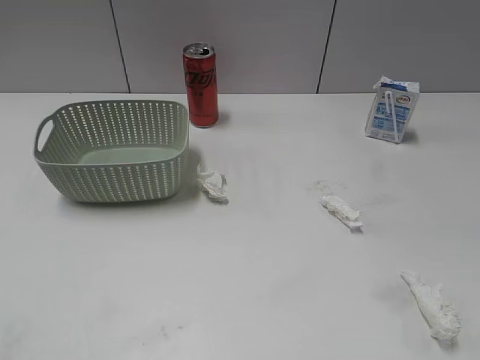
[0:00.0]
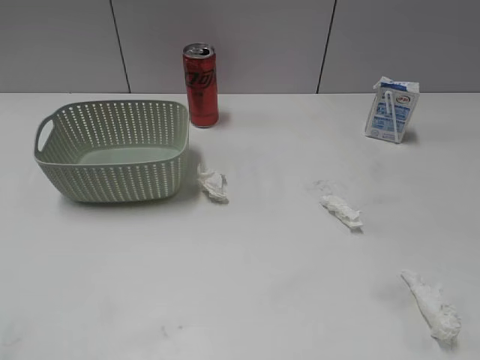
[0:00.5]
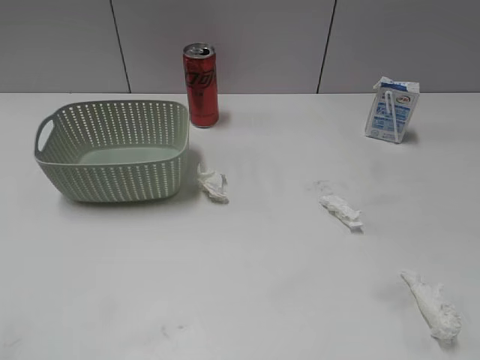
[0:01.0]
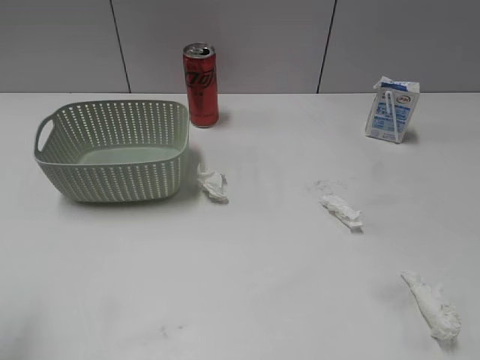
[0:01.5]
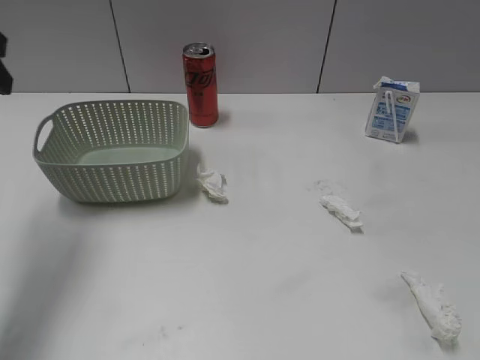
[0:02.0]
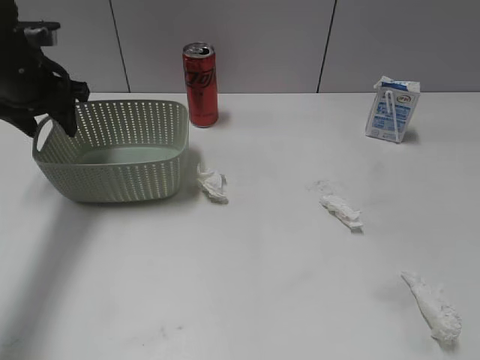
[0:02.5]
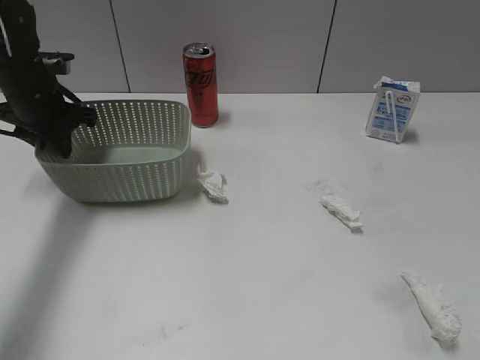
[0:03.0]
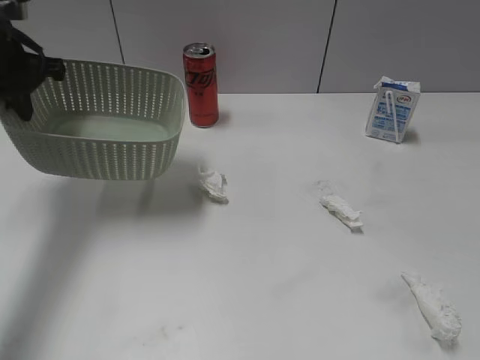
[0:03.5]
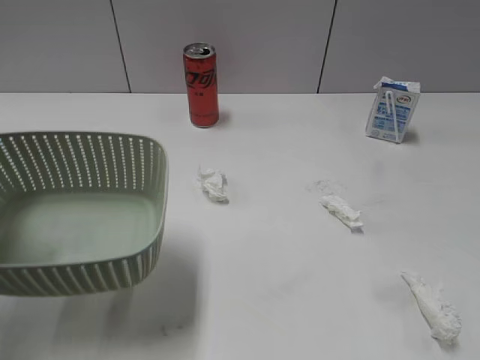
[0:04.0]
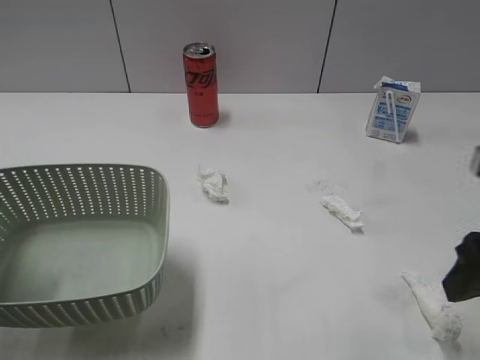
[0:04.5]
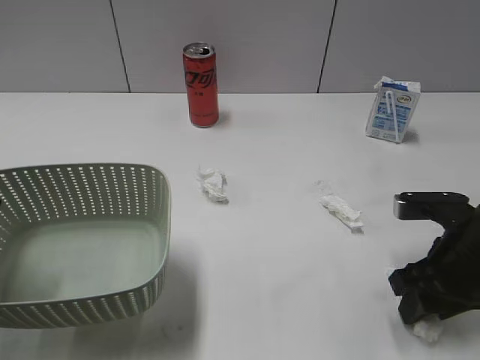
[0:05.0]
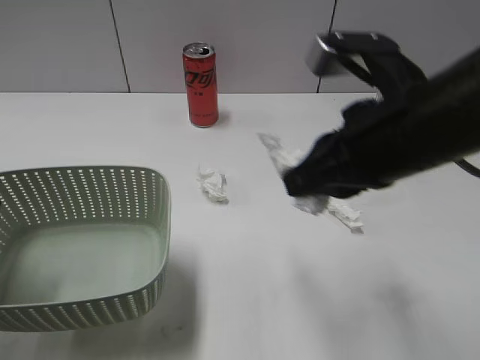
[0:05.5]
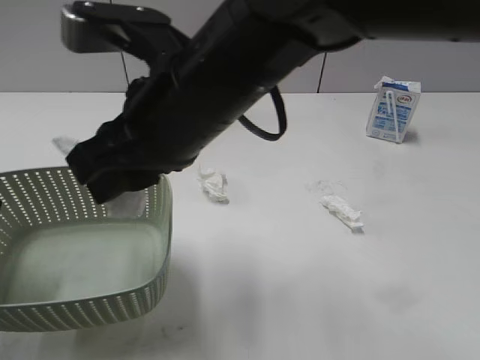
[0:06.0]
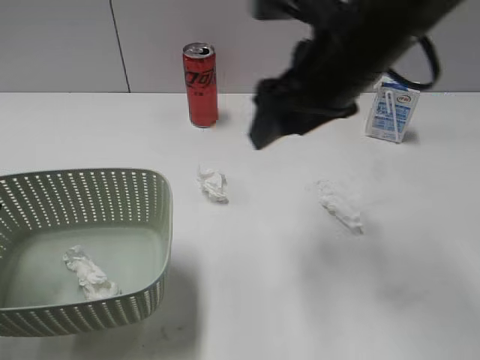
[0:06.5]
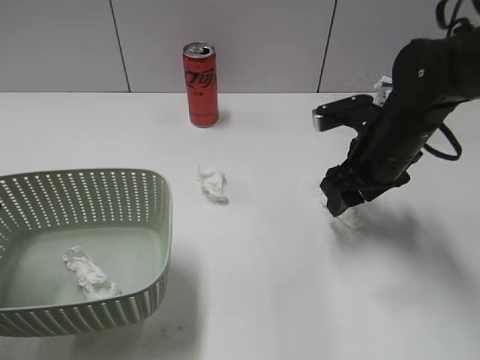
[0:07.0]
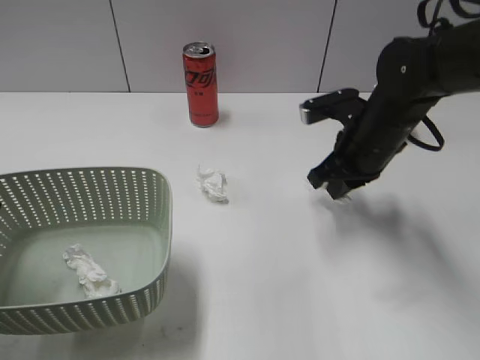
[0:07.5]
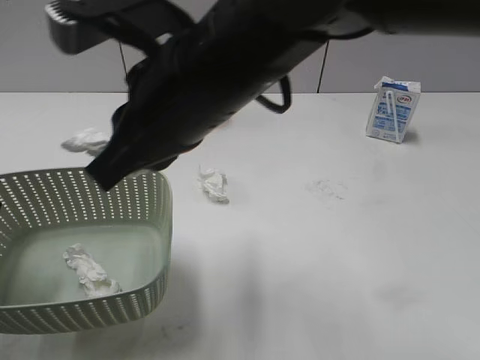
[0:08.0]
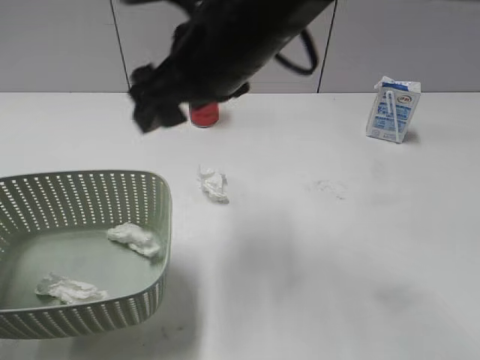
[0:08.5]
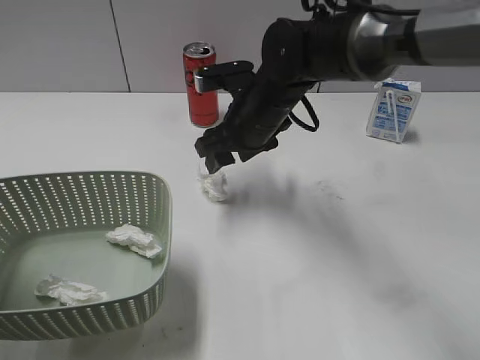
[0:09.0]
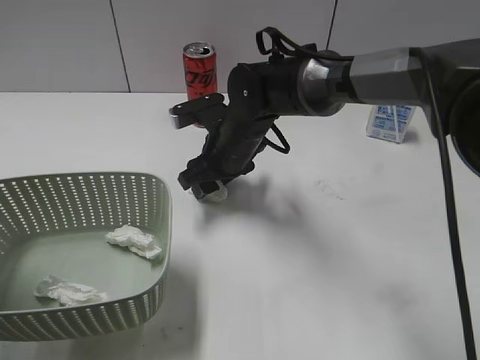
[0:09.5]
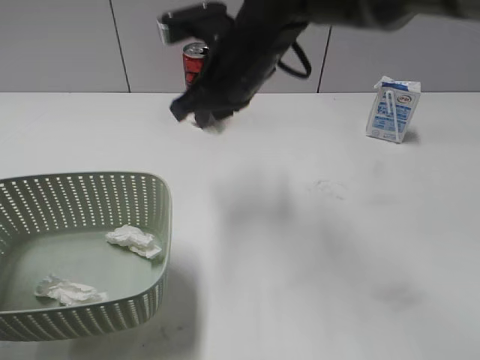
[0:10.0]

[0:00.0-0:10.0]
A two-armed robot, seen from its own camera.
Step, 0:02.0 to 0:03.0: Grasp the basket with left gripper.
Step, 0:04.0 to 0:05.0: Grasp the waste paper with right gripper.
Step, 0:05.5 to 0:06.0: Place the waste paper in the basket with right gripper.
Step, 0:06.5 to 0:07.5: Grasp the waste paper with right gripper.
Step, 0:08.5 to 0:09.5: Grasp the waste paper with right gripper.
0:02.0 to 0:04.0: The left gripper goes some 10 cm backward and downward, and closes, while the right gripper shifts about 5 cm forward.
0:04.0 to 0:06.0: The right gripper shifts some 35 cm to the left and forward, and closes.
0:06.0 to 0:08.0: The right gripper goes to the right and returns, roughly 20 cm each way, and closes up.
0:08.0 to 0:10.0: The right gripper heads forward, covering roughly 10 cm, goes downward and returns, roughly 15 cm each way, and opens, then closes once more.

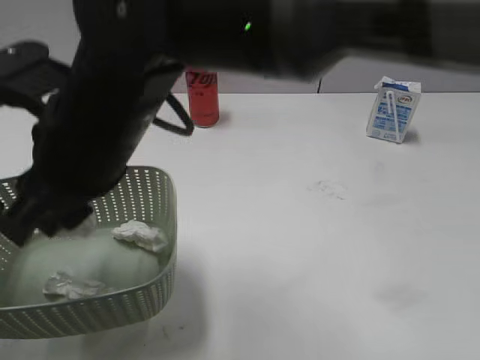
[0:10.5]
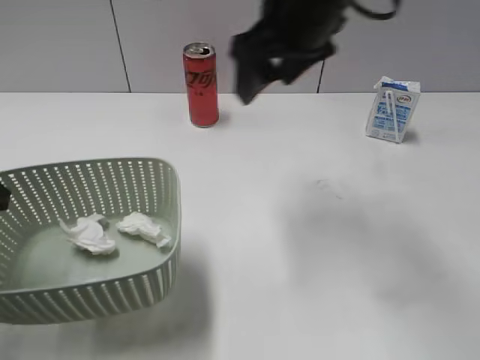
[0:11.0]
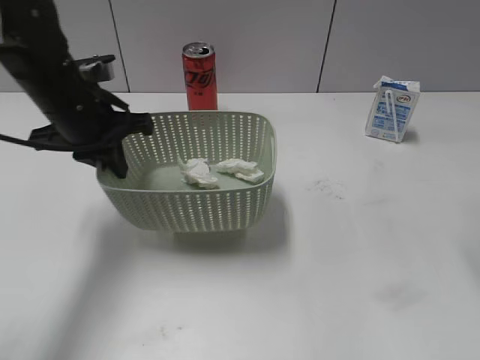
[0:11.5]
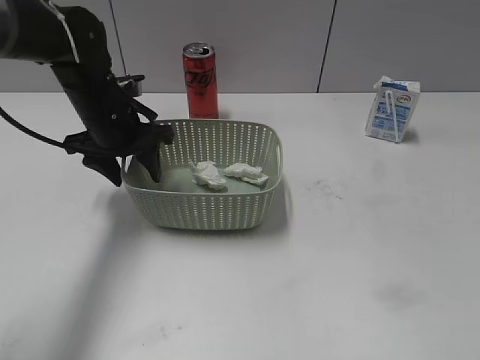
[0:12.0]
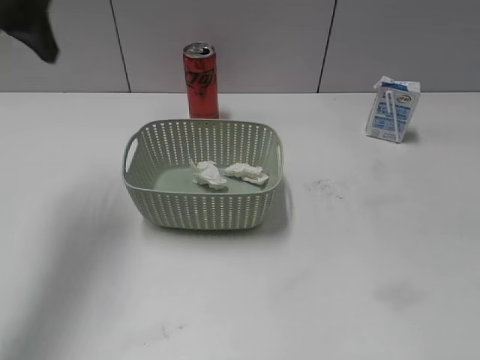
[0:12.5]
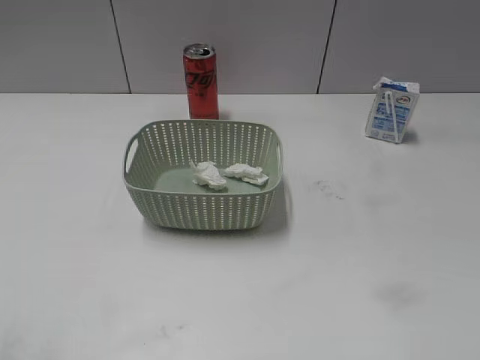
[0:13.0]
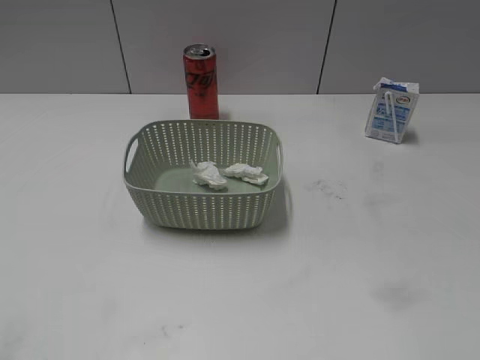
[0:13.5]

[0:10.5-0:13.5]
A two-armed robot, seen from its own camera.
Step, 0:11.0 to 0:12.0: Place the basket on the table with left gripper.
0:10.5 to 0:12.0: The left gripper moves forward and to the right, some 25 cm, and opens its fingers. Meanwhile the right gripper is displaced to the right by approximately 40 cm.
0:12.0 to 0:13.5: The left gripper shifts roughly 40 cm backward and to the left; the right gripper is displaced backward by approximately 5 cm.

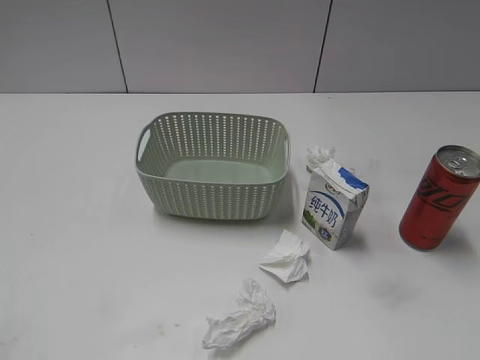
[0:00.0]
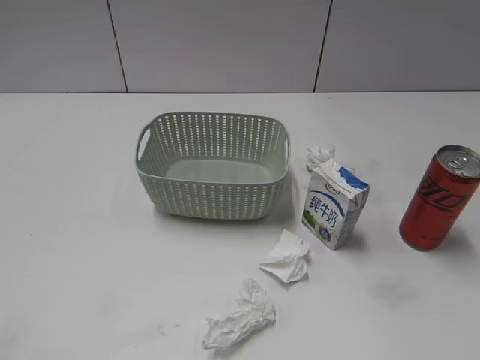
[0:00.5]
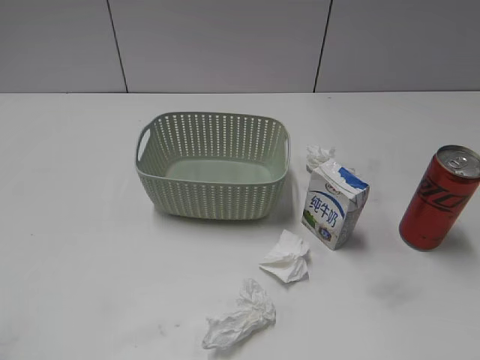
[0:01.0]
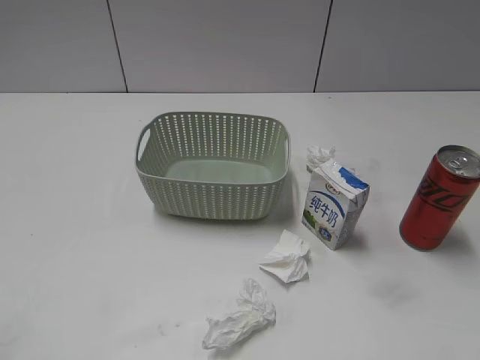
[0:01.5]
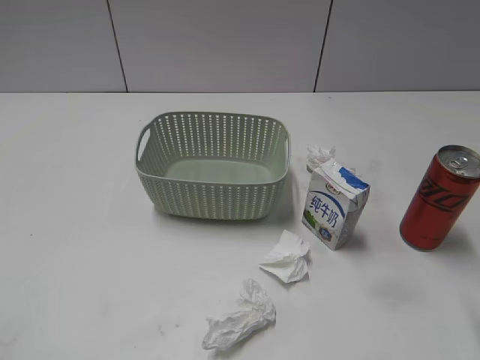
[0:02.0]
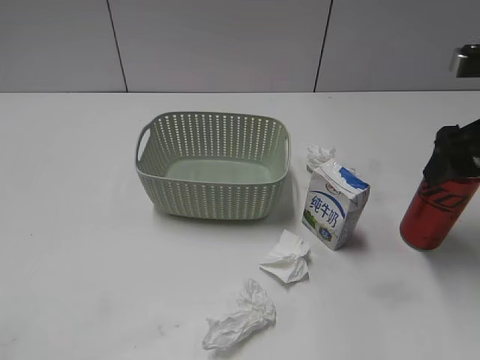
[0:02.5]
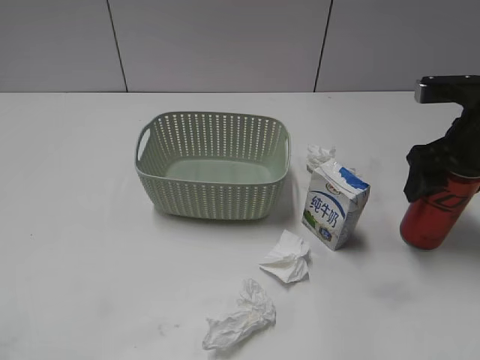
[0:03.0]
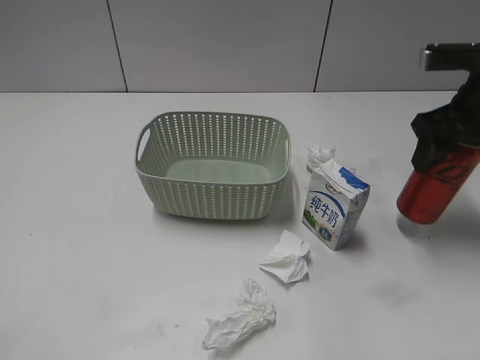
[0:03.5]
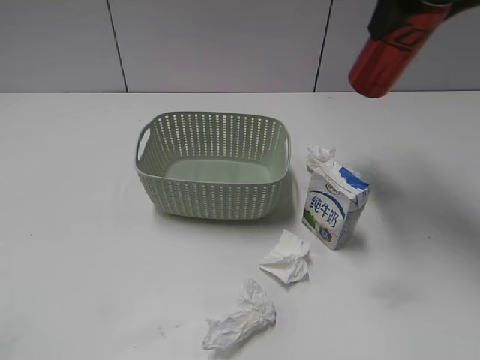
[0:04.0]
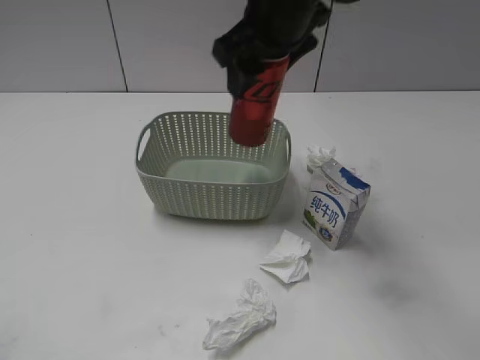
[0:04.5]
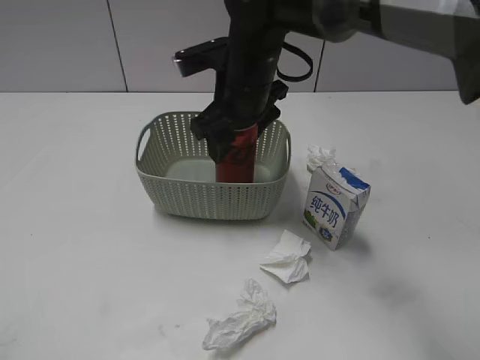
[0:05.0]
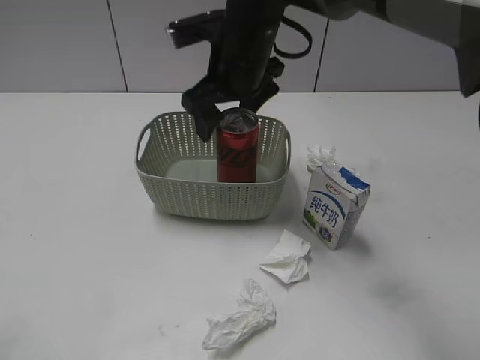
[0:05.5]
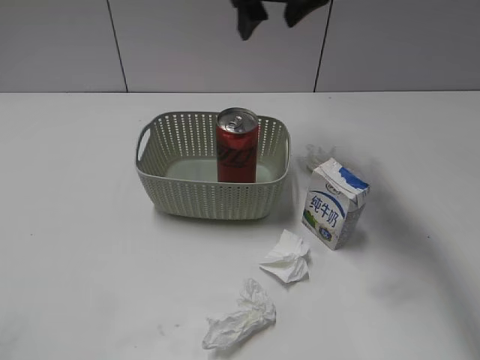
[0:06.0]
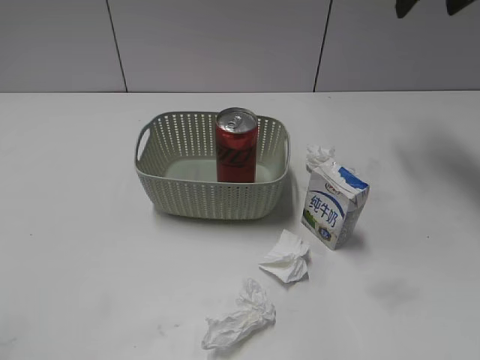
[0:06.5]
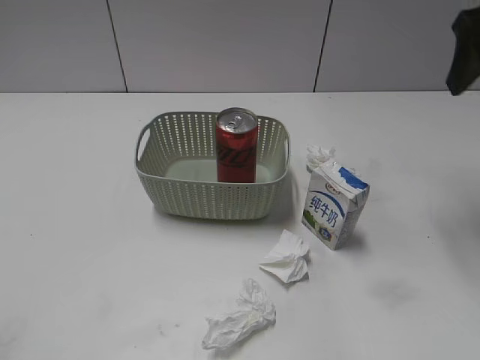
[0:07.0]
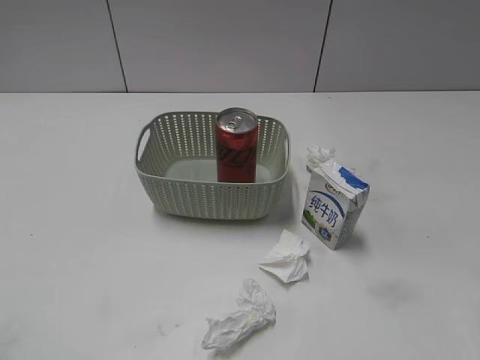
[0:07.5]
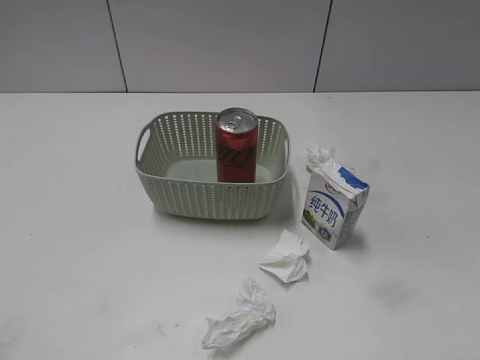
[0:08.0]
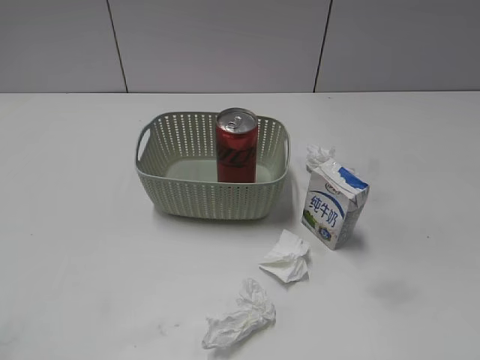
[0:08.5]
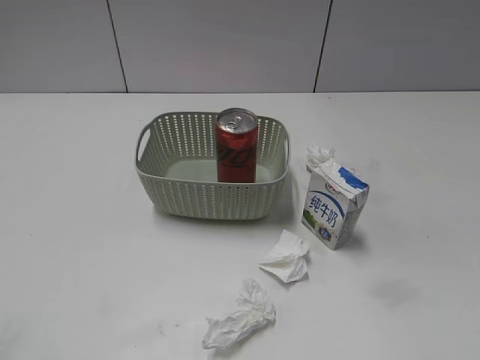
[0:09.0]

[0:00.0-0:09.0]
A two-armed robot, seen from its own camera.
Step, 0:02.5 to 0:03.0: Grasp the cola can with right gripper.
Step, 0:03.5 to 0:05.5: Place the cola can in the basket with right gripper.
0:02.0 to 0:04.5: The right gripper moves to the left and forward, roughly 30 cm, and closes its fingers.
0:04.5 to 0:07.0: The right gripper is displaced to the right by some 20 cm, and opens.
0:07.0 to 0:09.0: The right gripper is displaced backward by some 35 cm.

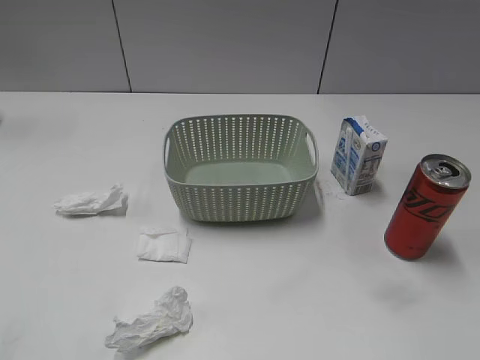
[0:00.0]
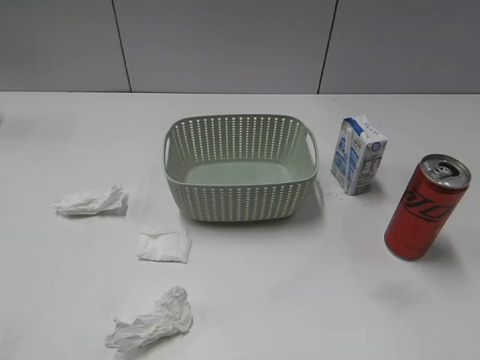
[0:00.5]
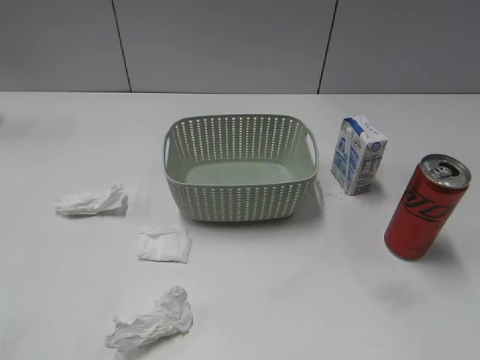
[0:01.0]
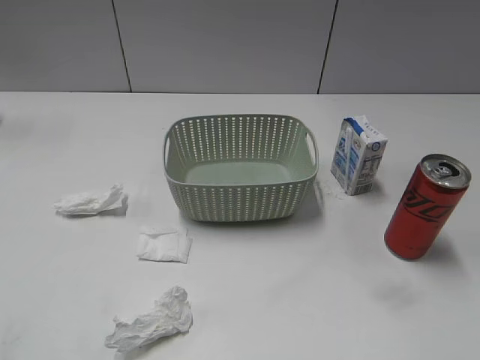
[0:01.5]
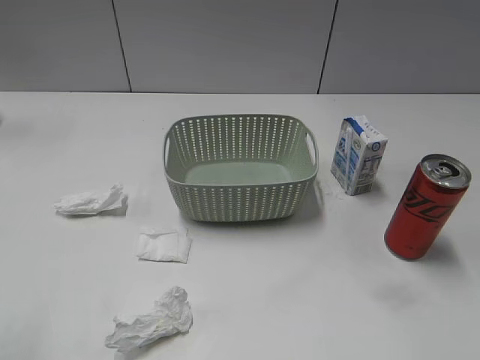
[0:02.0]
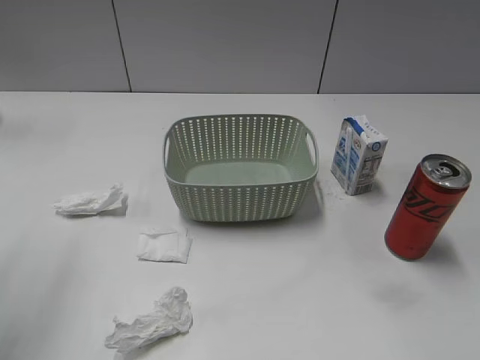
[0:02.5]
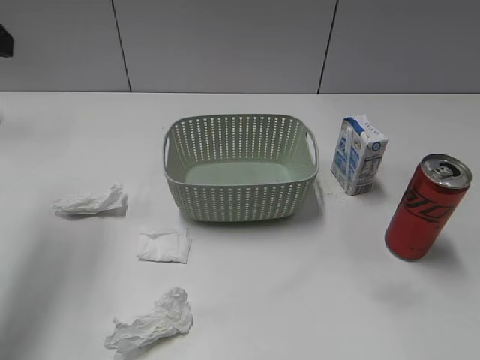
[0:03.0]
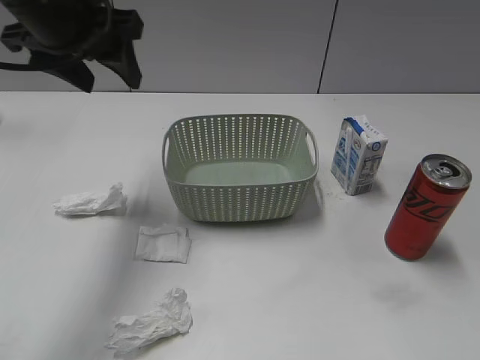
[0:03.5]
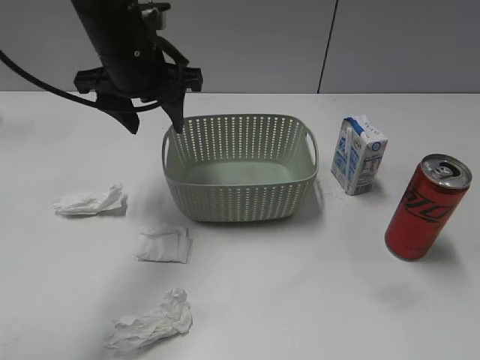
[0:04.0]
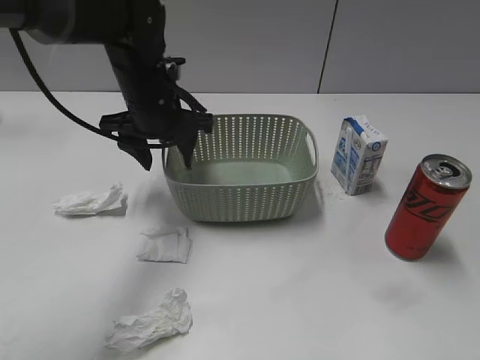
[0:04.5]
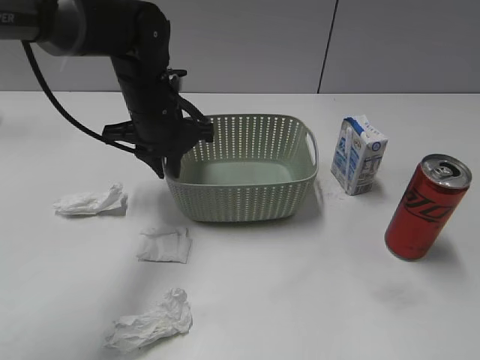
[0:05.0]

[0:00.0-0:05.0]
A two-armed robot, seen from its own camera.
0:02.5 to 0:05.0: The left gripper heads to the right, downward and forward, covering approximately 35 cm, and closes up.
